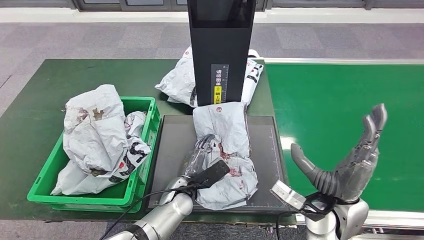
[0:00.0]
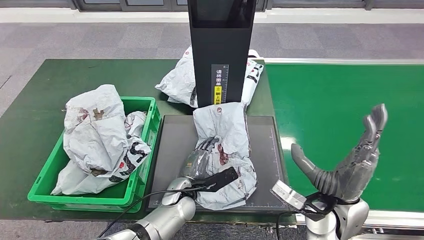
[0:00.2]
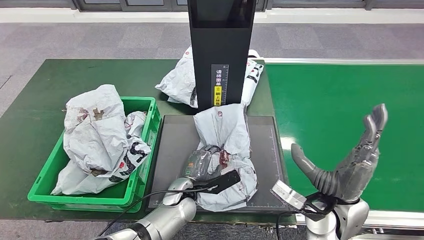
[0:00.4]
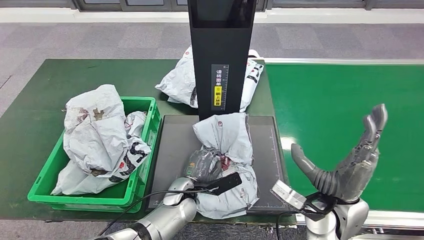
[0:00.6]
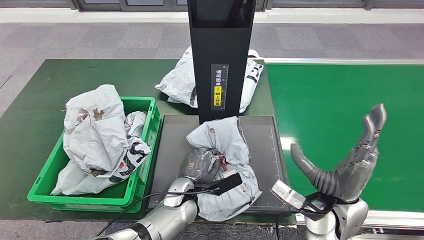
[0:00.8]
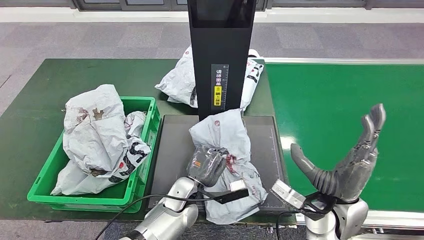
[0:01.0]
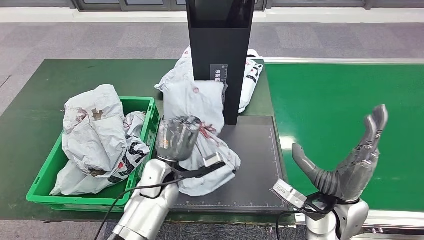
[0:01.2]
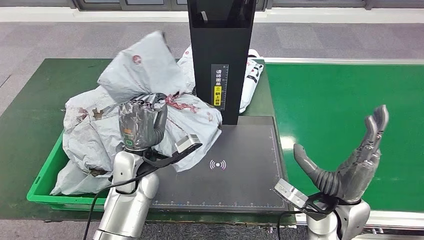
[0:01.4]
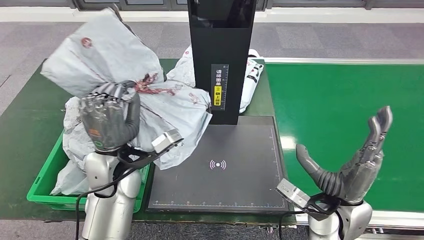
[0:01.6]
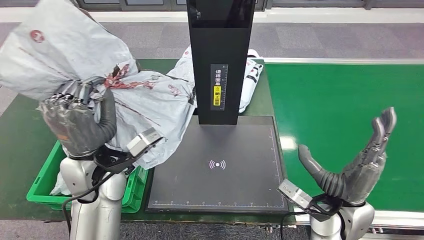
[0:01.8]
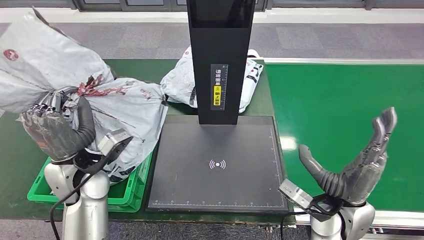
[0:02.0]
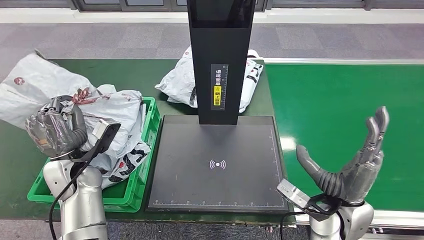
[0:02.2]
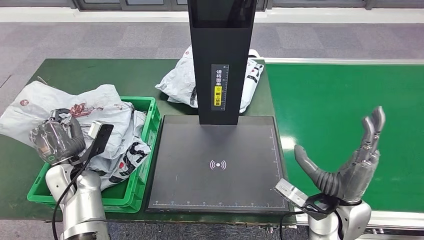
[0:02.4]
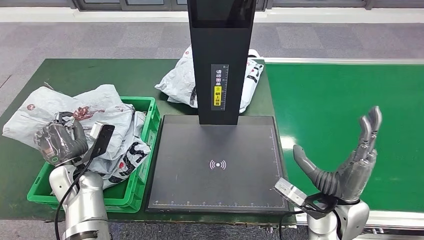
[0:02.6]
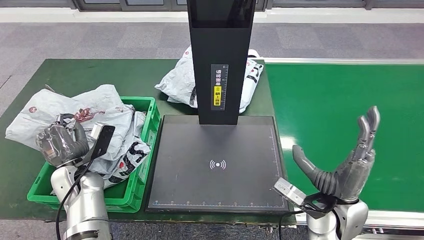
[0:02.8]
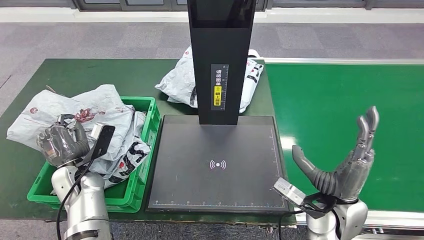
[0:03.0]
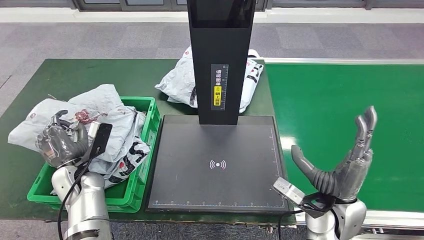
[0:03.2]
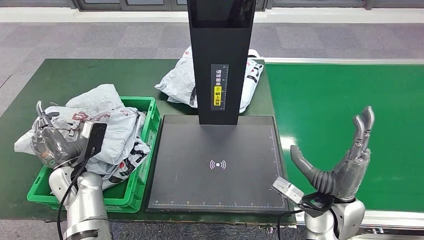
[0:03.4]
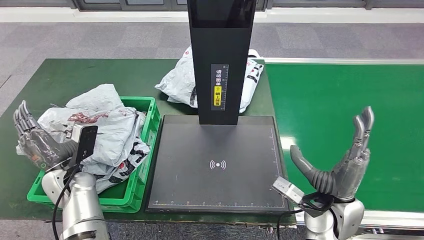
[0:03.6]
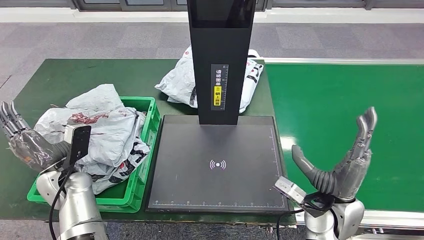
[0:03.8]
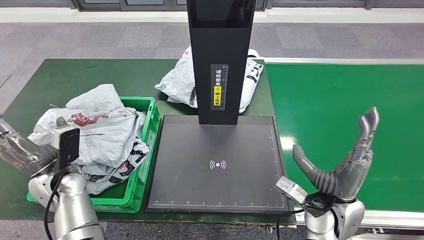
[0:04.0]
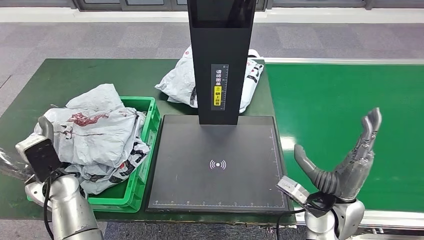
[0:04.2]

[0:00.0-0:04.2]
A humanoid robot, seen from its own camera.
Step, 0:00.0 to 0:01.6: Pick up the parcel from the inbound machine.
Step, 0:01.8 to 0:04.2: Place the parcel into the delivery box.
